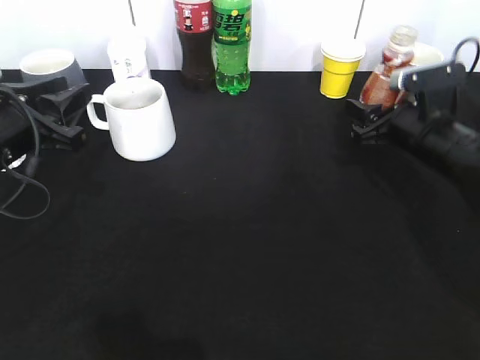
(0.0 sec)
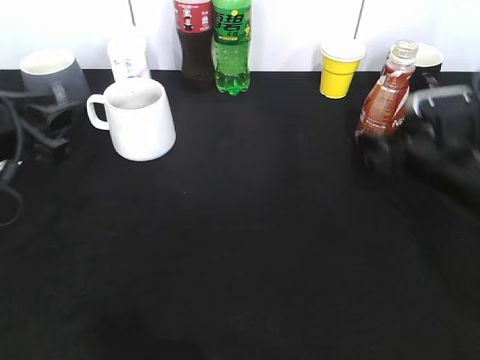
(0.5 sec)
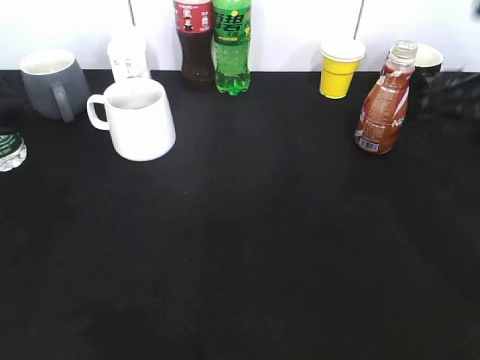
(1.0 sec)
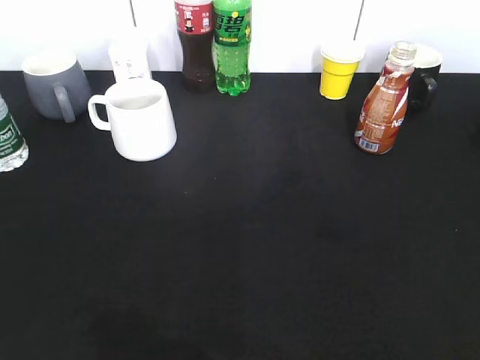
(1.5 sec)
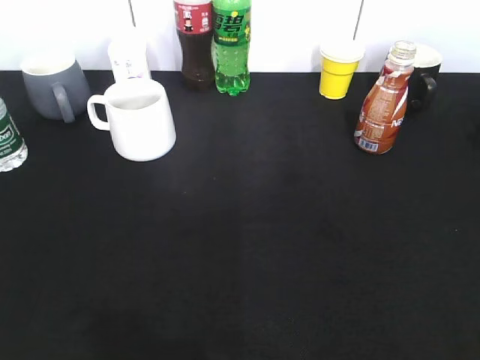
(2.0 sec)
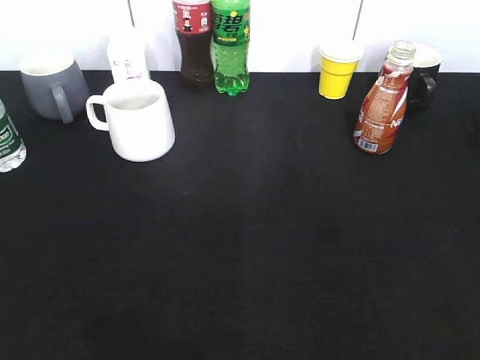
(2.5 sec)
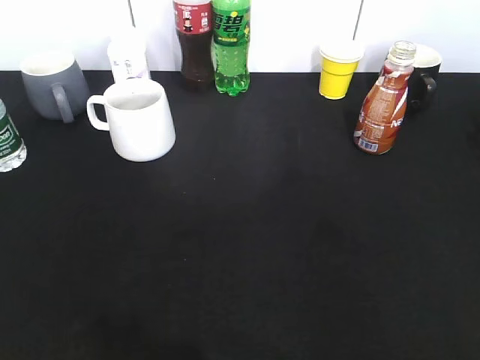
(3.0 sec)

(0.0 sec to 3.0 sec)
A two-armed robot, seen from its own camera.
Step, 0.0 sec - 0.5 sec: Place the coffee bottle on the table with right gripper.
0.0 sec - 1.5 sec: The left gripper moves backward, roughly 30 cm. The right gripper travels backward and upward by some 40 cm, and opens up.
1.5 sec - 3.0 sec: The grippers move only a little.

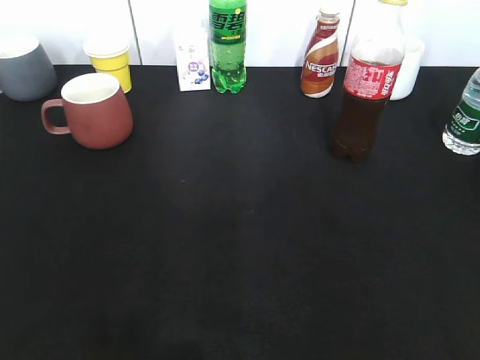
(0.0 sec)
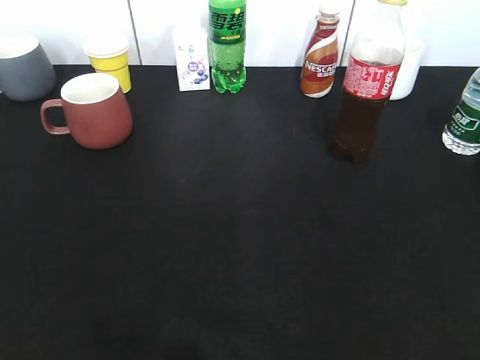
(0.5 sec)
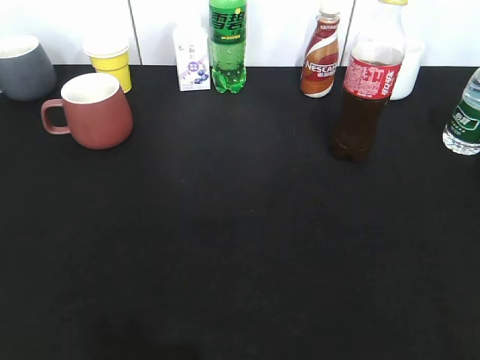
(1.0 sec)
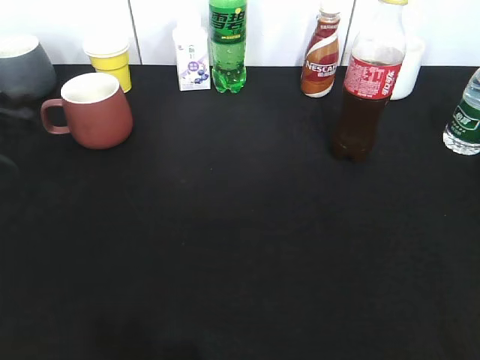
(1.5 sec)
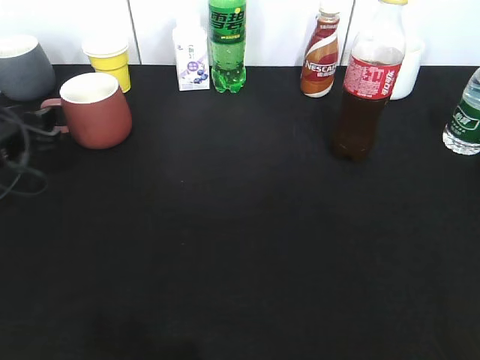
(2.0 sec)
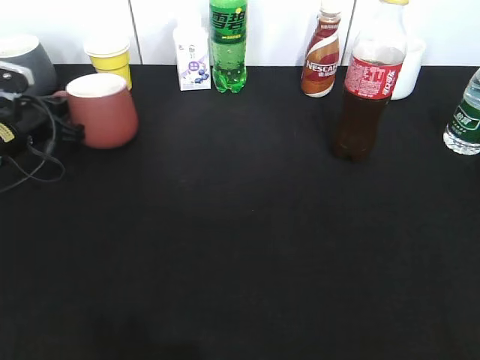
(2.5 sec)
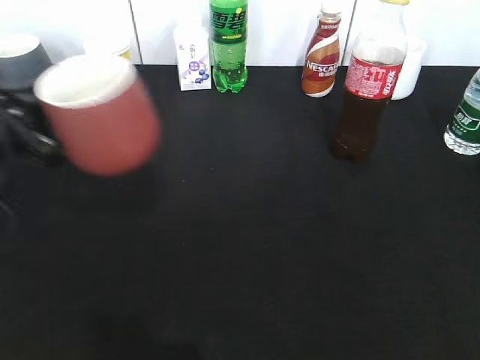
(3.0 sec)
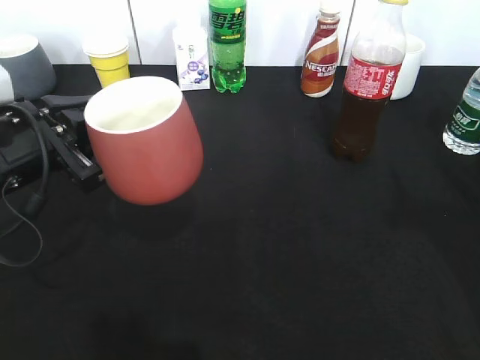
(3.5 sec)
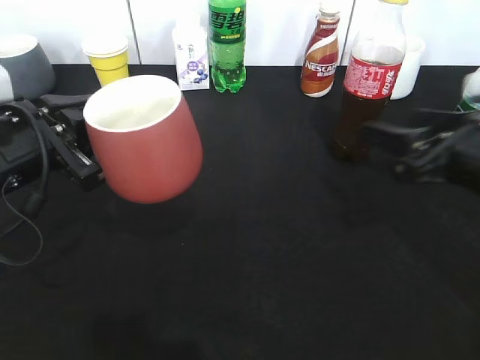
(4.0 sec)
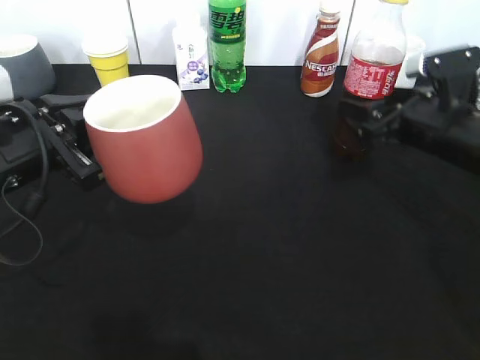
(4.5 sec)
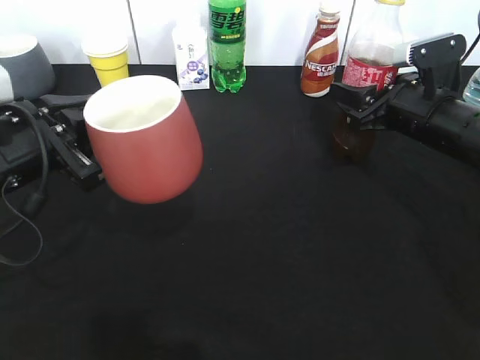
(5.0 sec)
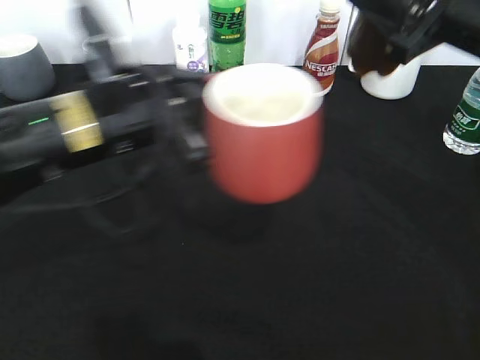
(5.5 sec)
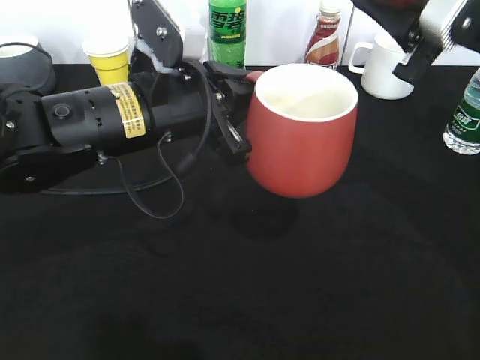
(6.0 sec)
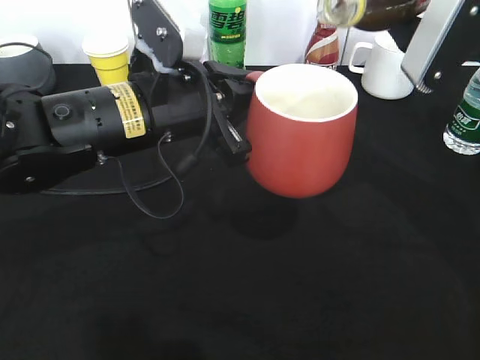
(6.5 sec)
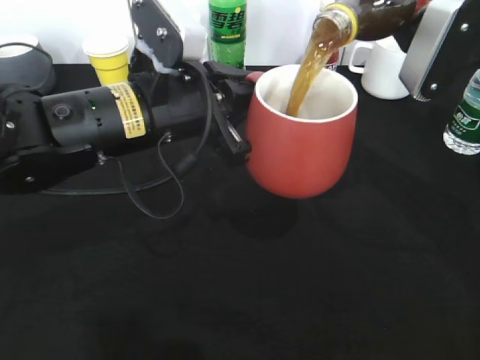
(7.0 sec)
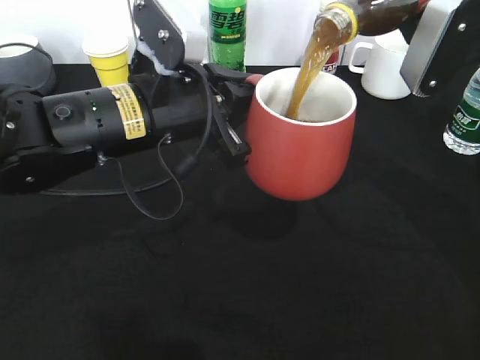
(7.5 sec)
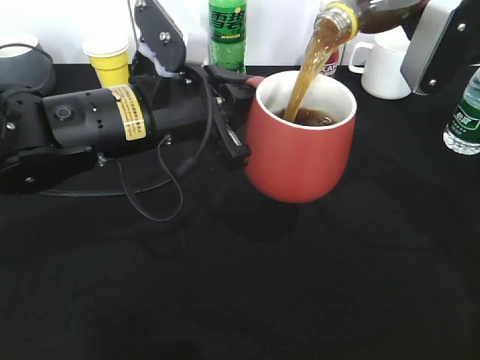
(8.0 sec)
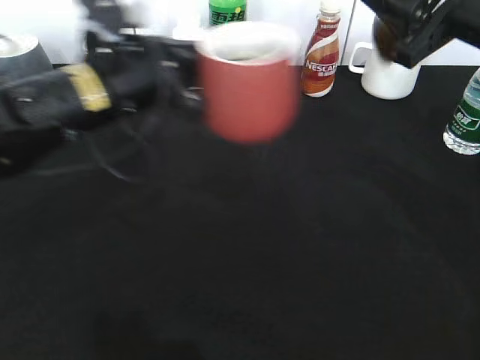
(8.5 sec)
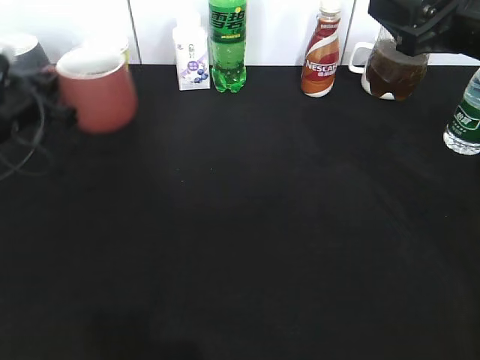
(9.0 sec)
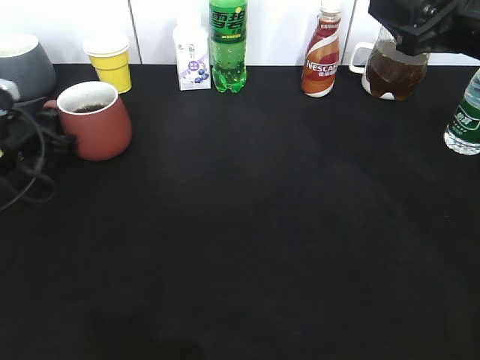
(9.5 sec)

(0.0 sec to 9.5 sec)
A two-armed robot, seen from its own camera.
Step, 2.5 sec - 3.5 sec: Lift the red cup with left gripper.
Step, 4.0 sec - 4.5 sec: Grasp the bottle with cola with right gripper.
Step, 5.5 sec - 8.0 sec: Pour the cola from bottle to cup with right gripper.
0.0 sec - 2.0 sec: The left gripper travels forward and downward by approximately 35 cm, and opens up.
2.0 sec - 4.0 sec: The left gripper is displaced backward, to the right and upward by some 15 cm, and closes its fingers, while the right gripper shifts roughly 25 cm forward, and opens its fingers.
4.0 sec - 5.5 sec: The left gripper moves to the right, about 10 cm. The right gripper shifts about 10 cm upward and forward, and closes up.
7.5 sec - 9.5 sec: The left gripper is displaced to the left and downward by some 25 cm, and opens up.

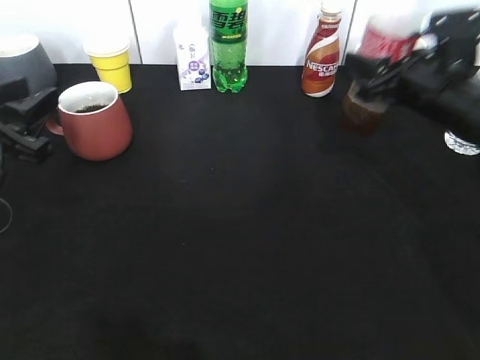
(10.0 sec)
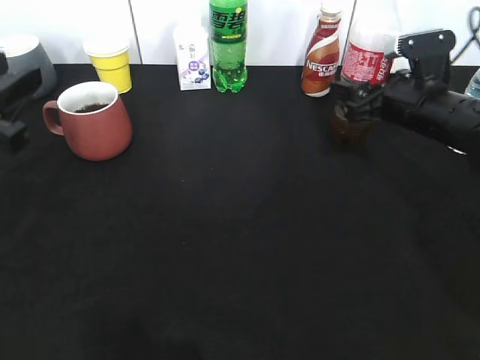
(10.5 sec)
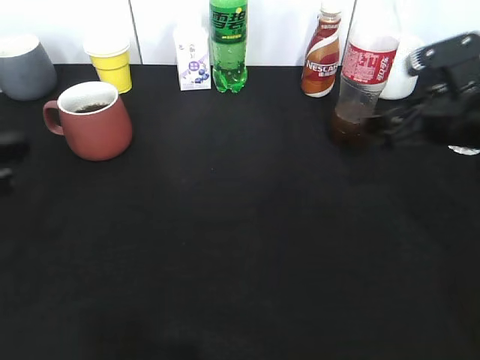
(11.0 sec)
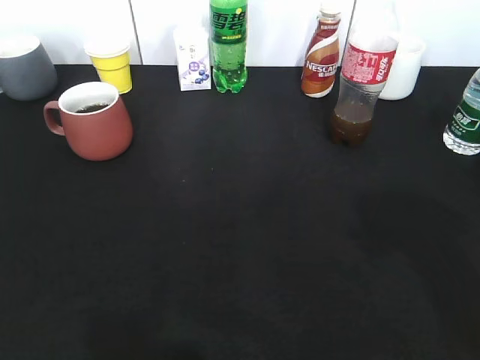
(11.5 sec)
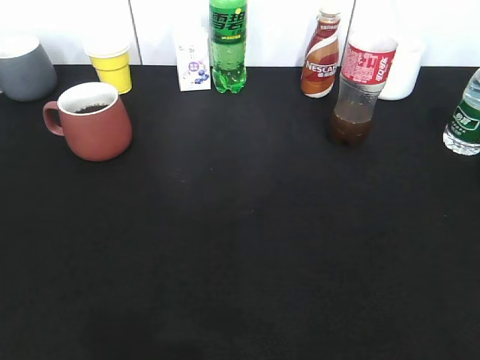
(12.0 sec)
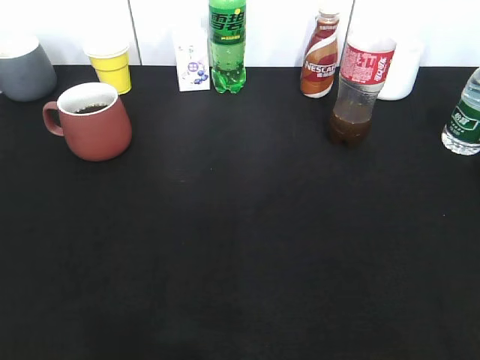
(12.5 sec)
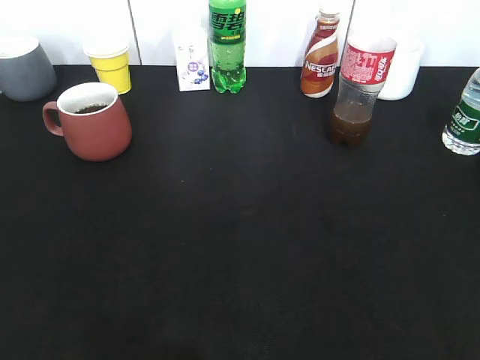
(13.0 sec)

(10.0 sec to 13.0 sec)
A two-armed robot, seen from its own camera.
10.0 sec - 11.5 sec: The two grippers go about 25 cm backward and upward. The right gripper opens.
11.5 sec - 13.0 sec: The left gripper is displaced backward and downward by approximately 10 cm; the right gripper heads backward, downward and to the right, covering roughly 15 cm.
